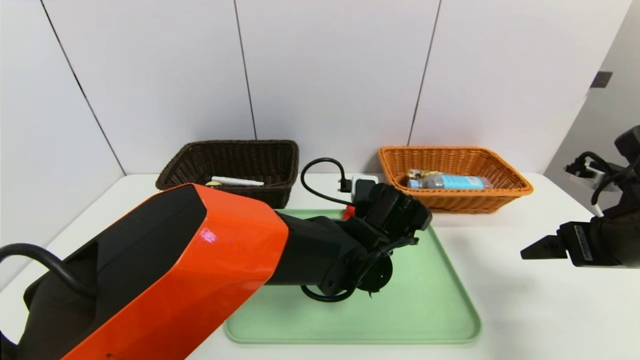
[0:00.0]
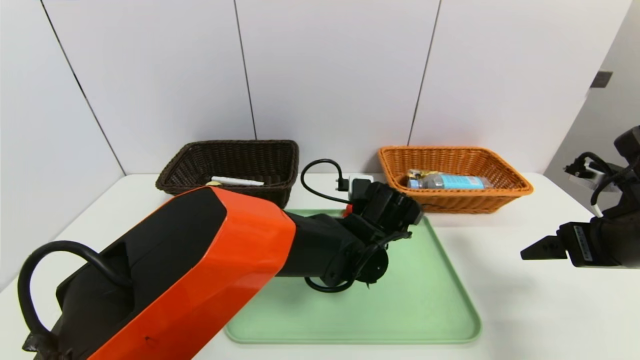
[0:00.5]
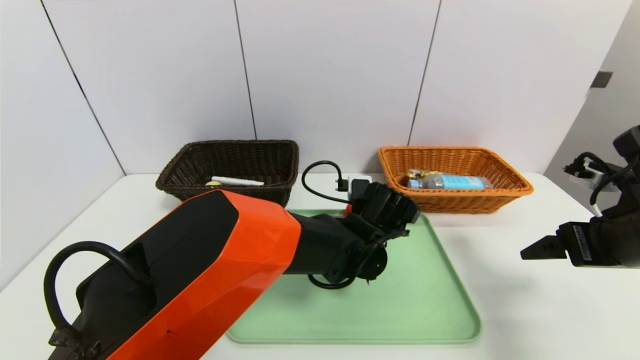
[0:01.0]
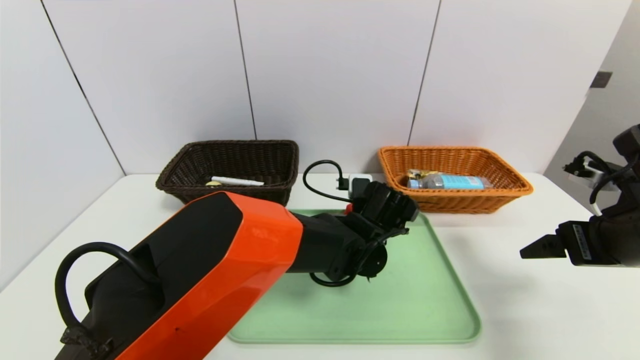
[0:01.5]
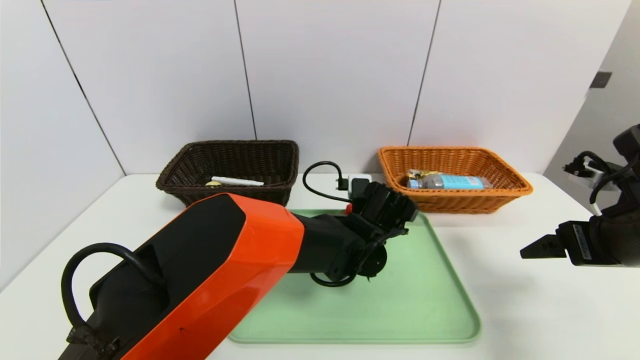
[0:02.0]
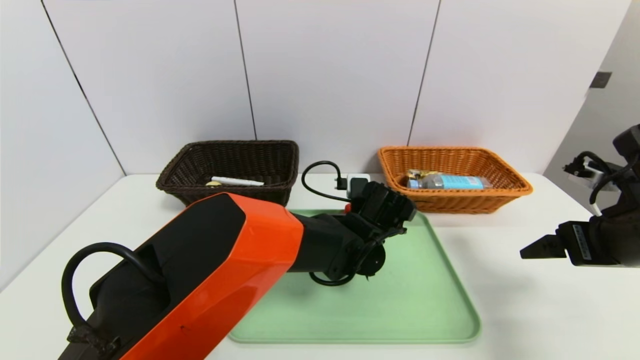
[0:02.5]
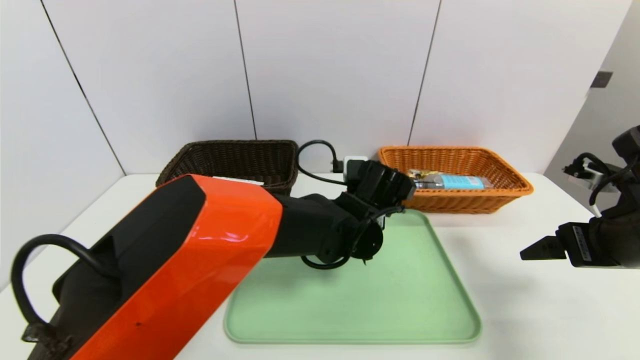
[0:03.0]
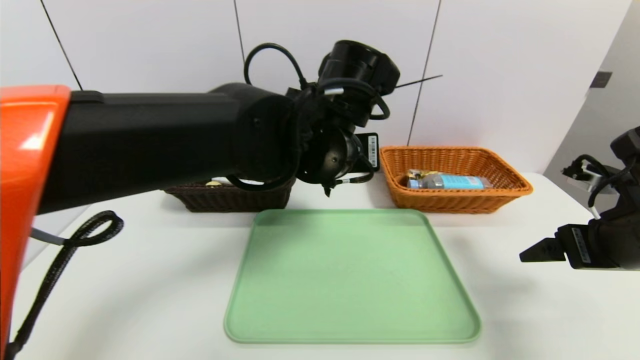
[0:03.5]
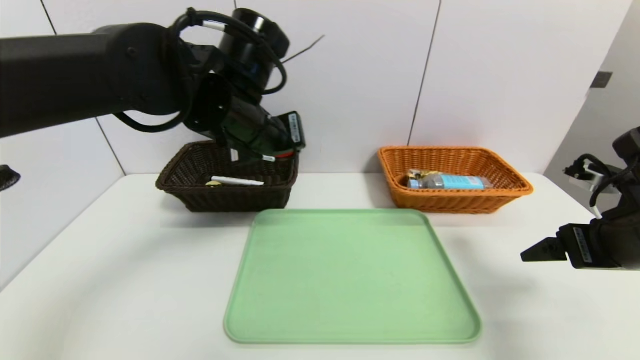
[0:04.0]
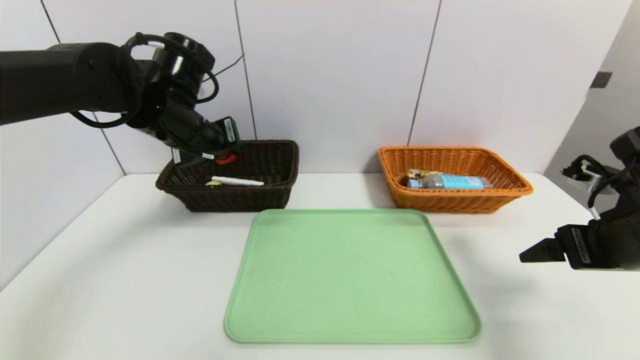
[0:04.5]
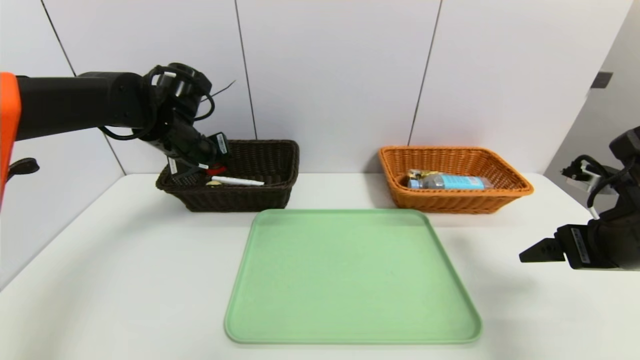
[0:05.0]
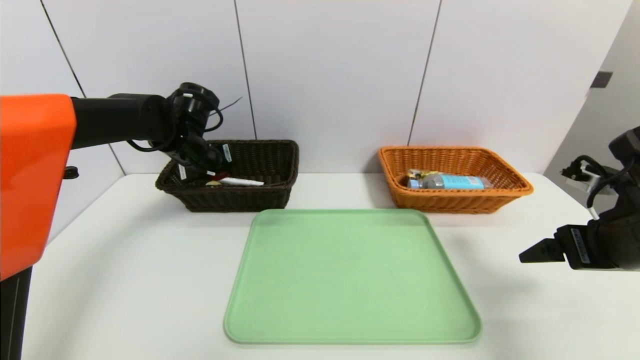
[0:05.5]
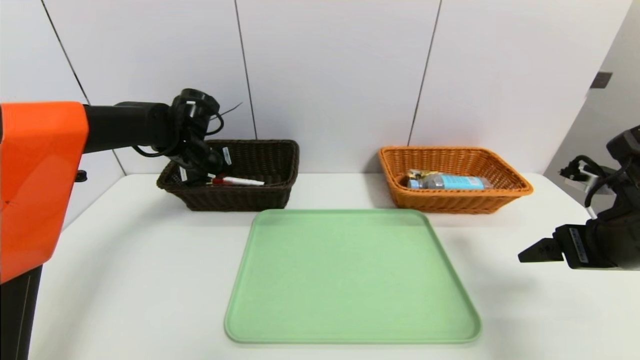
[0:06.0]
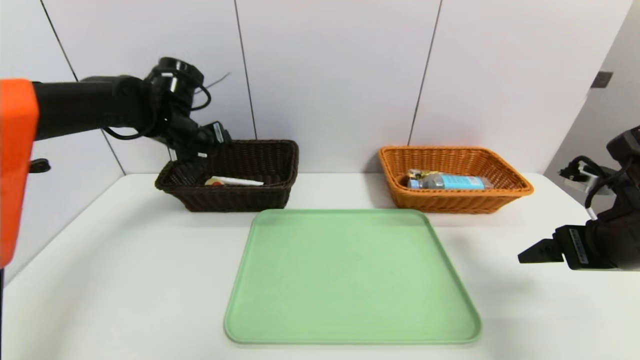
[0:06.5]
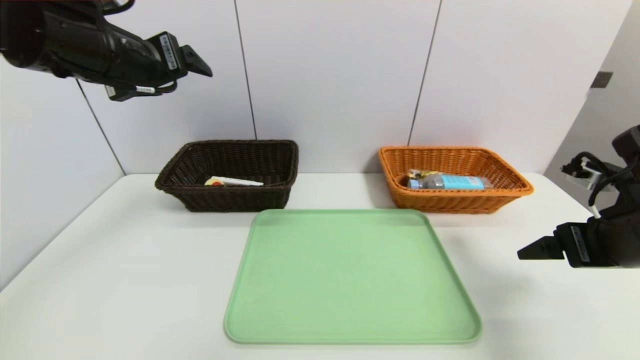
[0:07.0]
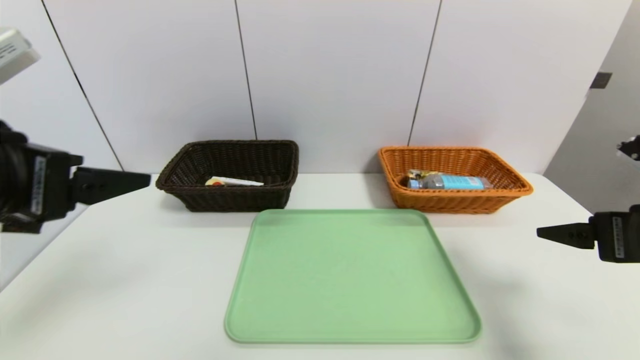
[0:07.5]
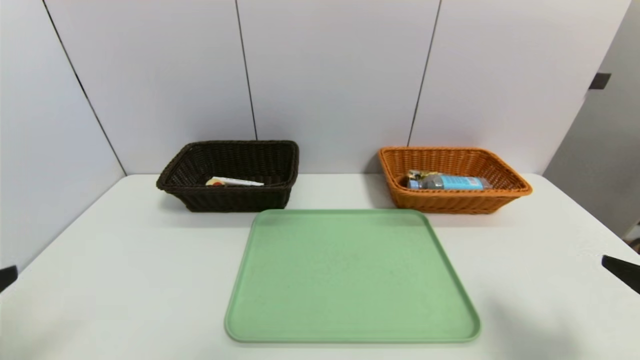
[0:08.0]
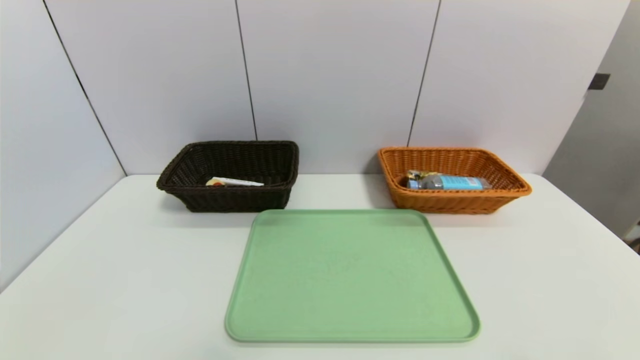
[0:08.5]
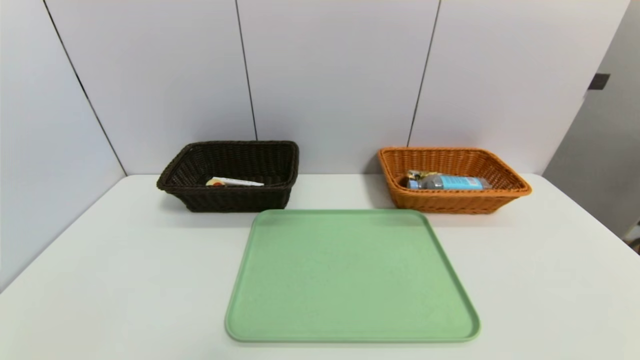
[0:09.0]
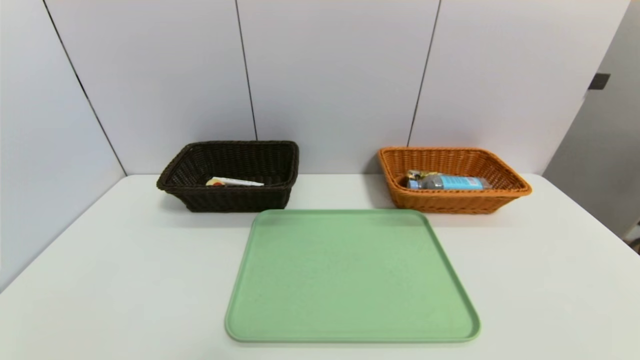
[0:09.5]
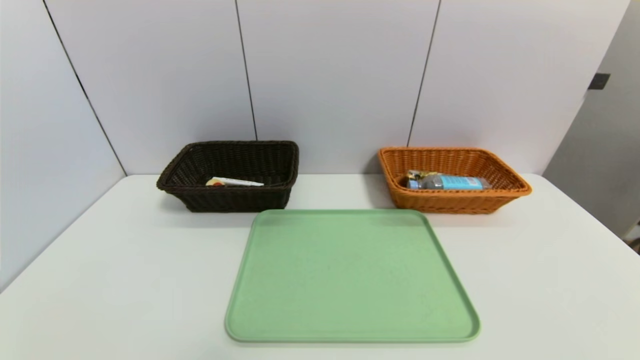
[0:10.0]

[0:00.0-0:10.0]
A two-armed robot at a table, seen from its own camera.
Task of the whole recording: place the food in the right basket with the right gripper, and place the non food items in the left basket with the left gripper.
Step, 0:00.0 to 0:06.0: Grasp the red duck and put it in the left basket.
0:00.0 to 0:02.0: The grippers stay close to where they were, moving slightly.
0:02.0 to 0:04.0: The left gripper goes some 25 cm upward and to the left, and closes up.
0:04.0 to 0:06.0: The left gripper heads forward, to the left and downward, covering approximately 20 cm.
0:06.0 to 0:08.0: The left gripper heads backward, covering approximately 40 cm, and opens its fingers. Meanwhile the right gripper heads backward, covering roughly 15 cm.
0:08.0 to 0:10.0: The left gripper travels downward by roughly 20 cm, while the right gripper travels downward and backward by about 15 cm.
